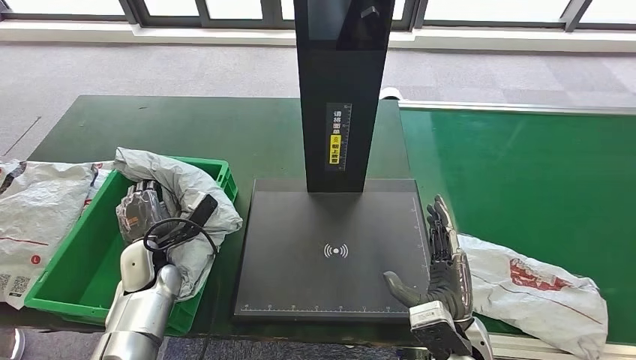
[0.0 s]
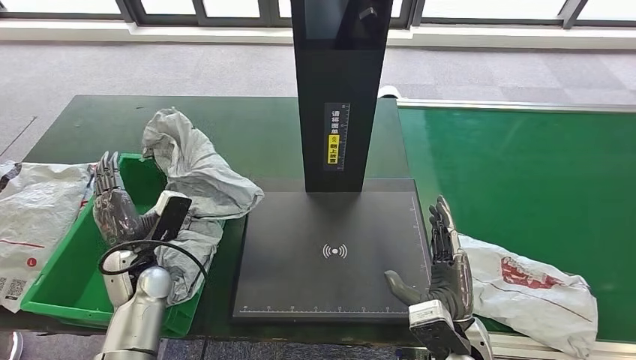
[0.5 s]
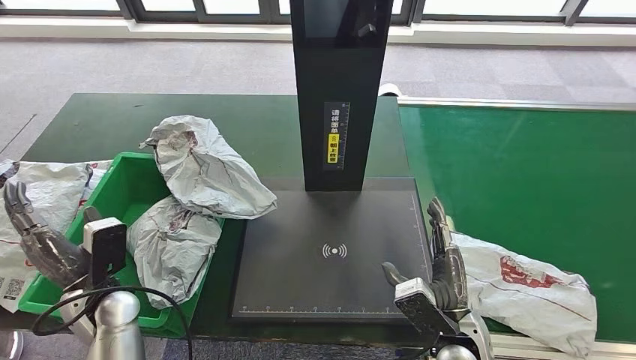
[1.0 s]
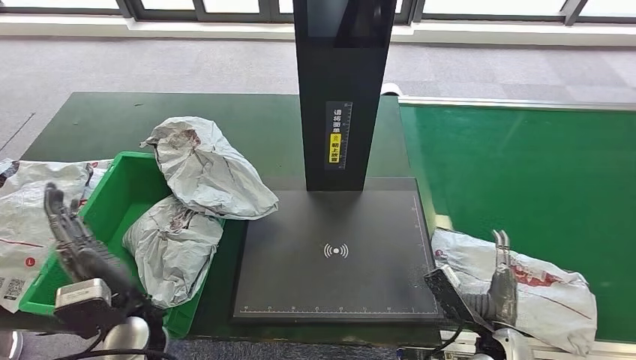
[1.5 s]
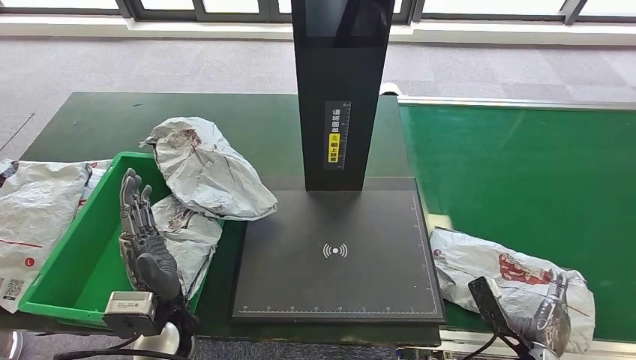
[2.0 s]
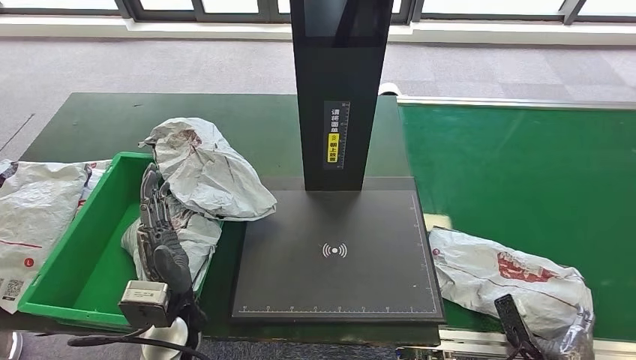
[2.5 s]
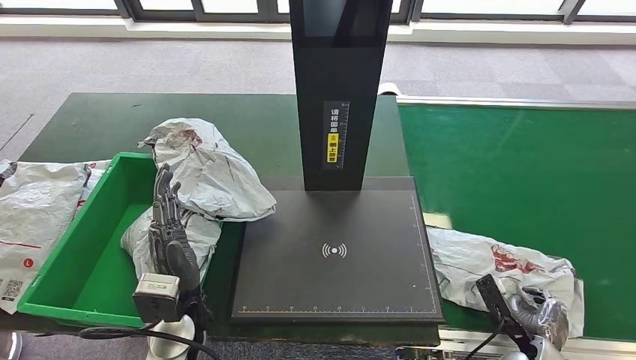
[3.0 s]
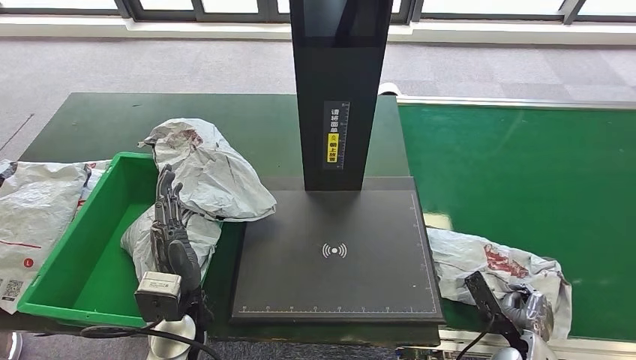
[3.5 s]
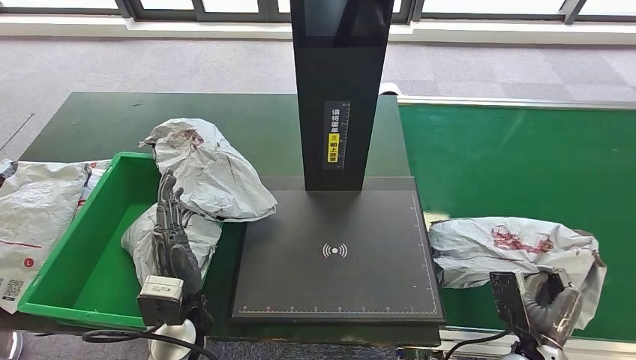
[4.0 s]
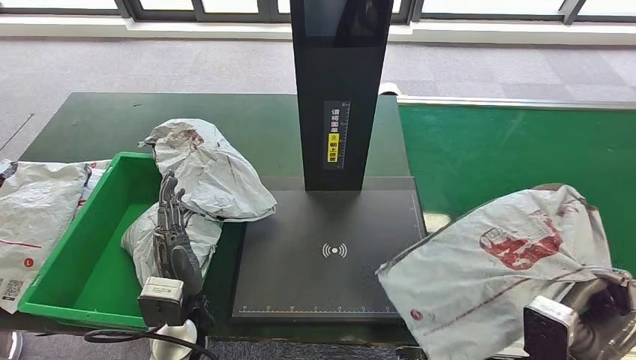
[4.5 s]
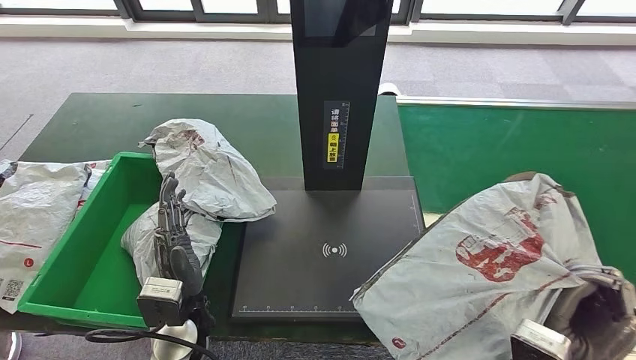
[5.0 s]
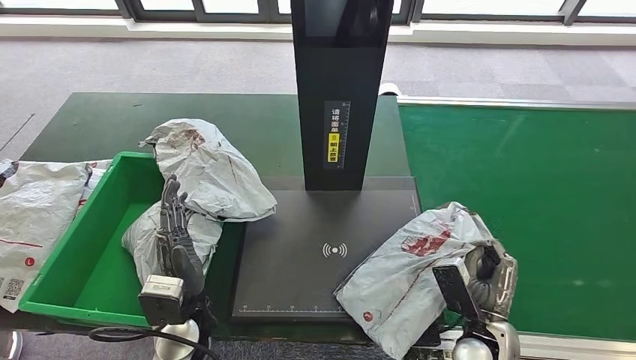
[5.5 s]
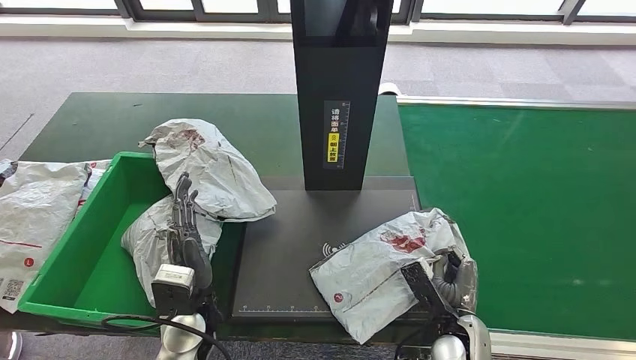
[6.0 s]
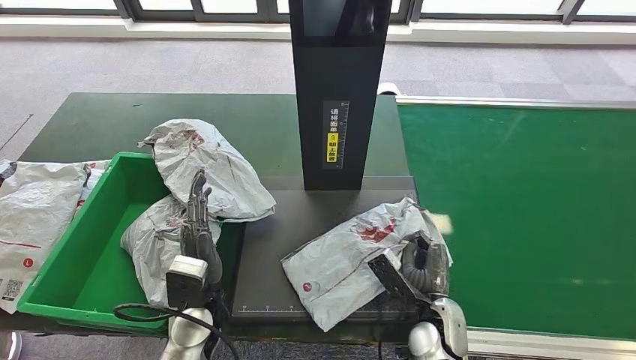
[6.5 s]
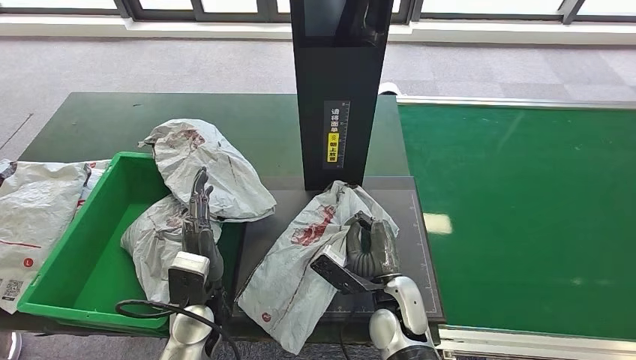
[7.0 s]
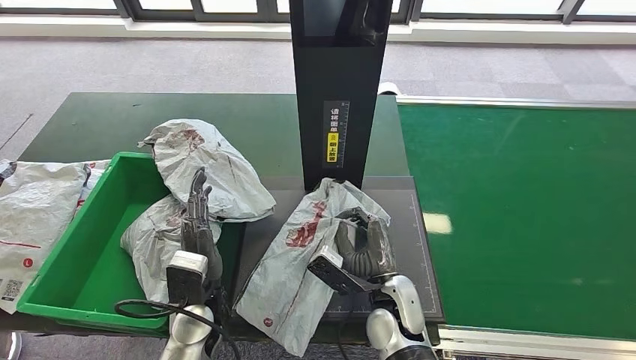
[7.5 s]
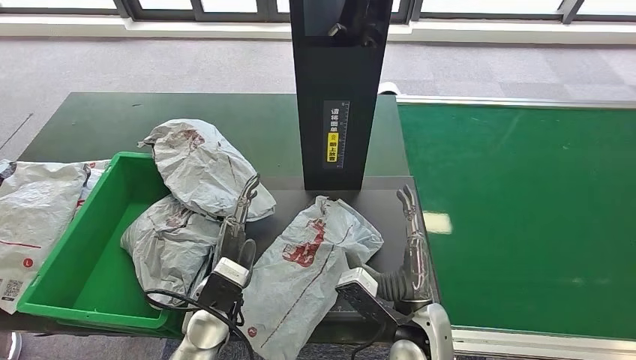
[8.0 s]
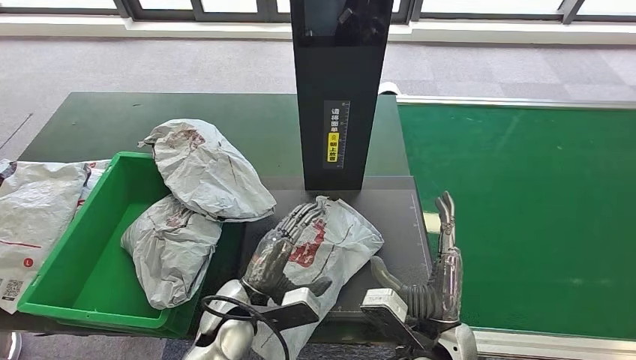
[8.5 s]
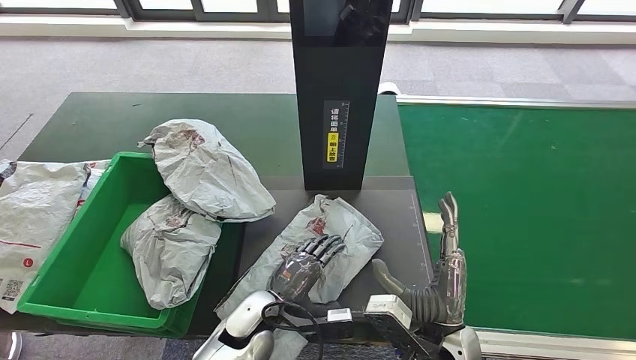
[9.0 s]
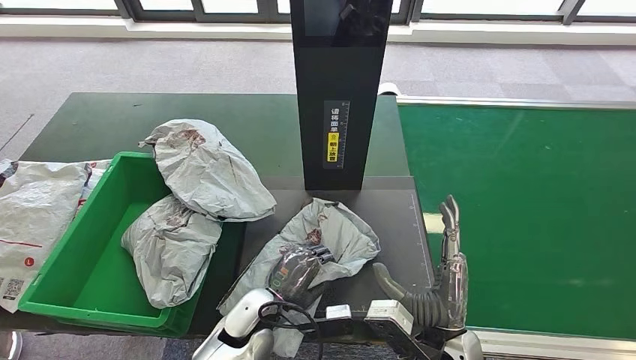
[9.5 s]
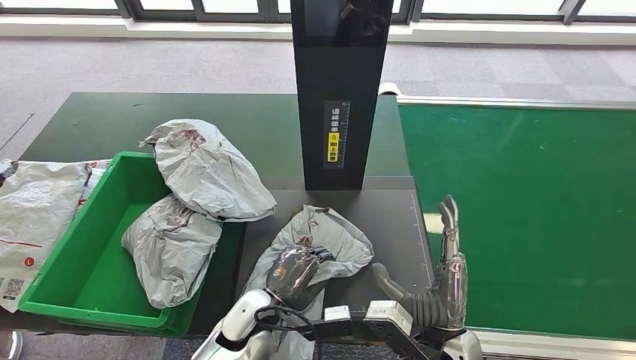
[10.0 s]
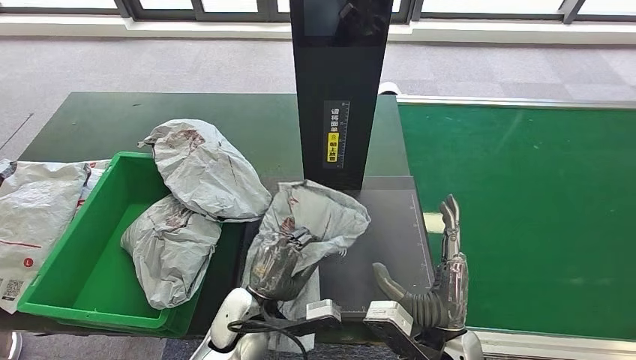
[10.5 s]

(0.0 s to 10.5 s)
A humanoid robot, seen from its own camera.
Step, 2.0 s - 4.0 s: Pick up the parcel from the conveyor belt.
Step, 4.5 s - 8.5 s: Place the parcel onto the inbound machine.
6.5 s - 8.5 s: The right hand shifts approximately 10 cm upward.

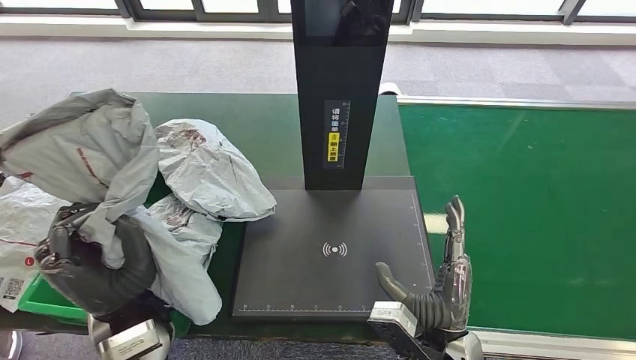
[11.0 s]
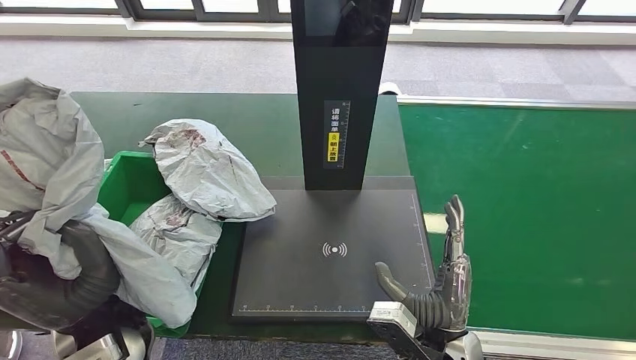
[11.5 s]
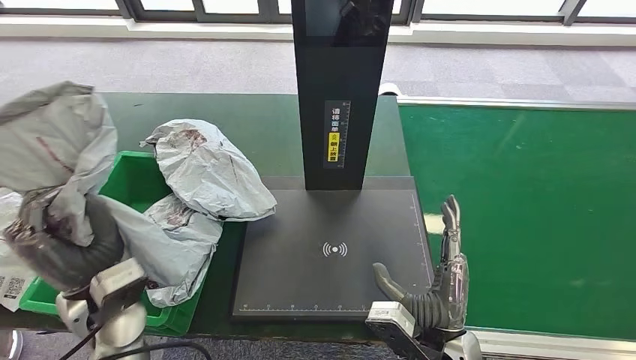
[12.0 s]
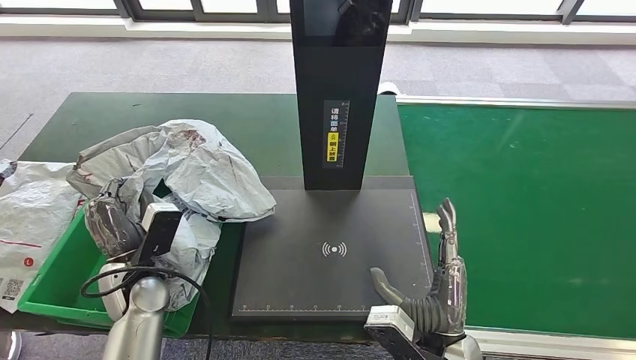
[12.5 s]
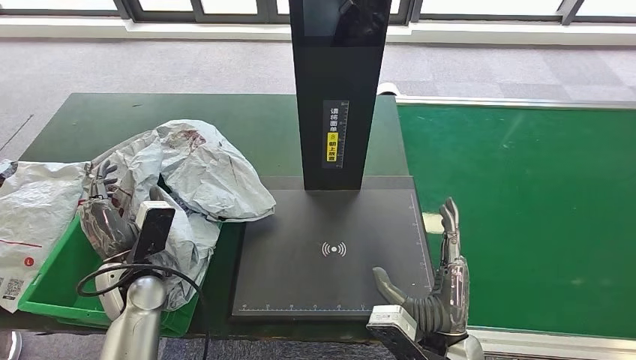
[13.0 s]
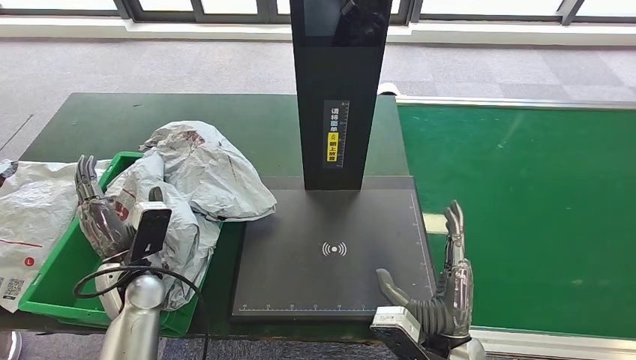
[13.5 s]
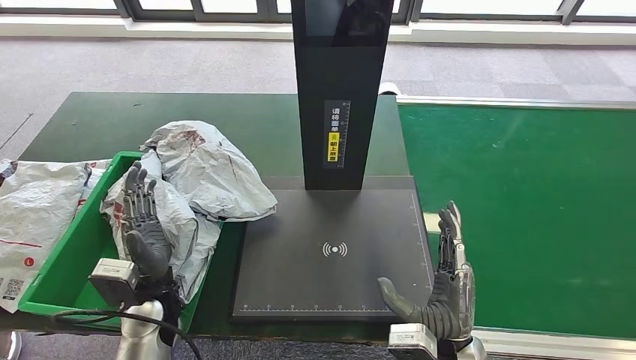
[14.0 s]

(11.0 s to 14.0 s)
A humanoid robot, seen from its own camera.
Step, 11.5 s - 14.0 s: Place the parcel into the delivery box.
11.0 s - 12.5 s: The left hand heads downward, forward and to the left, covering some 15 cm.
